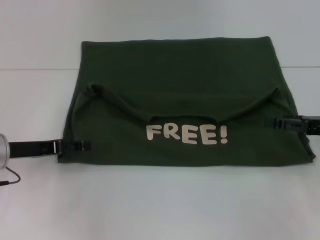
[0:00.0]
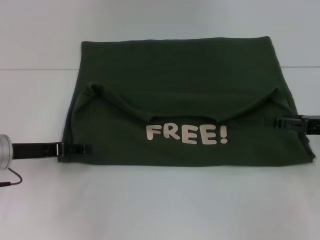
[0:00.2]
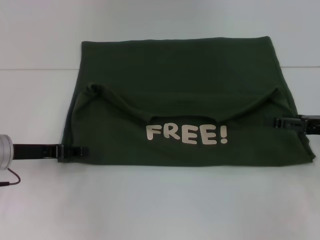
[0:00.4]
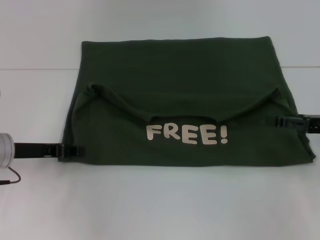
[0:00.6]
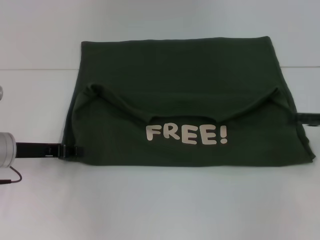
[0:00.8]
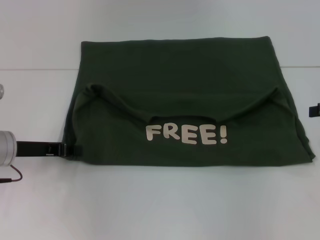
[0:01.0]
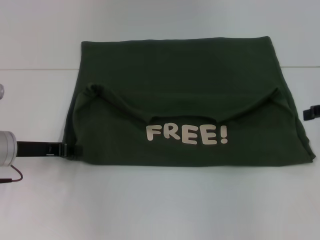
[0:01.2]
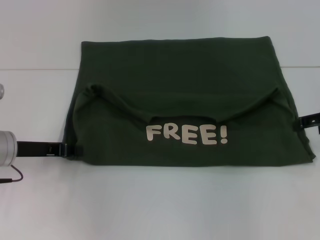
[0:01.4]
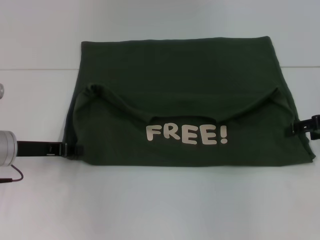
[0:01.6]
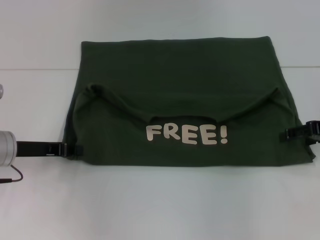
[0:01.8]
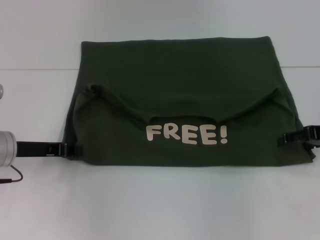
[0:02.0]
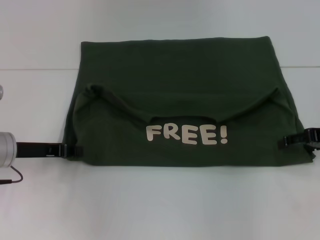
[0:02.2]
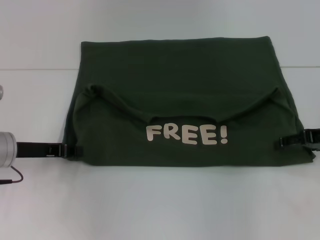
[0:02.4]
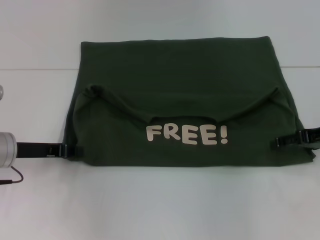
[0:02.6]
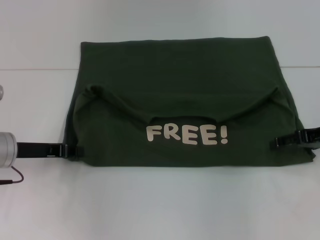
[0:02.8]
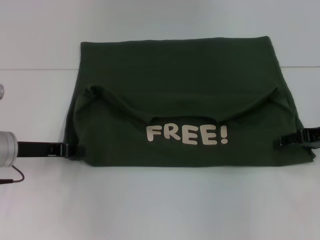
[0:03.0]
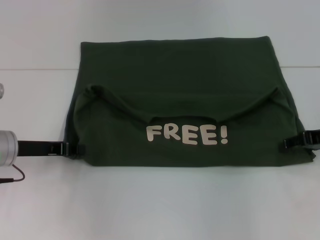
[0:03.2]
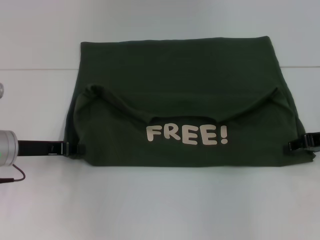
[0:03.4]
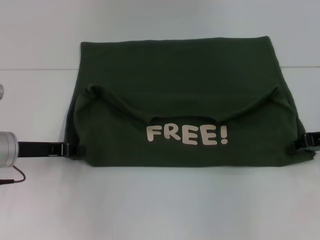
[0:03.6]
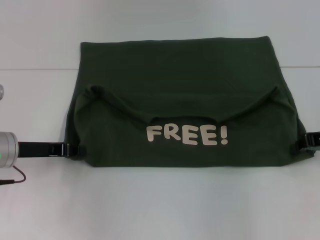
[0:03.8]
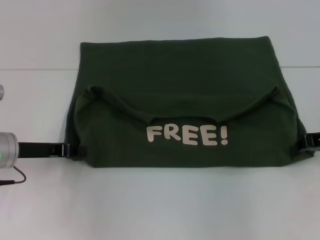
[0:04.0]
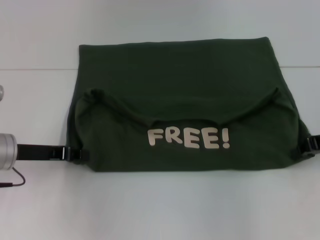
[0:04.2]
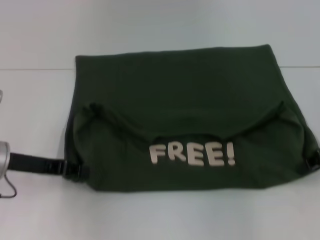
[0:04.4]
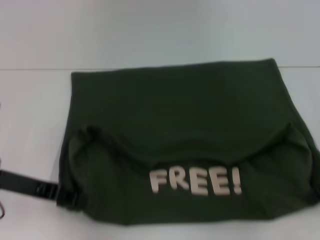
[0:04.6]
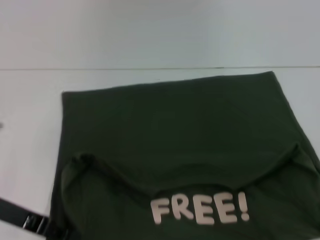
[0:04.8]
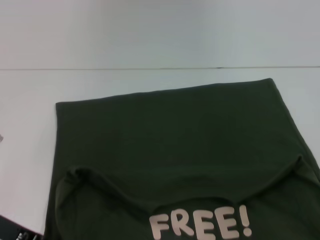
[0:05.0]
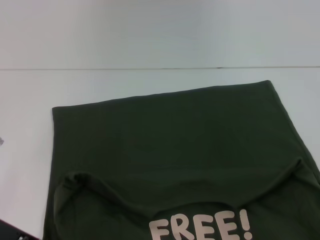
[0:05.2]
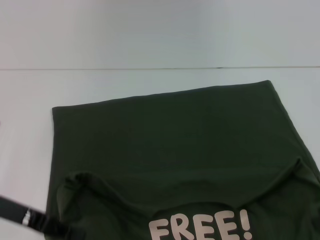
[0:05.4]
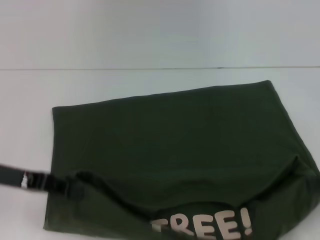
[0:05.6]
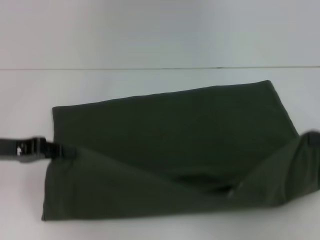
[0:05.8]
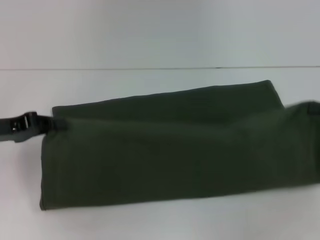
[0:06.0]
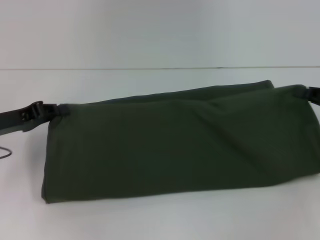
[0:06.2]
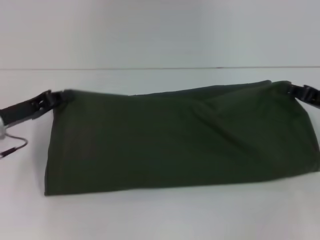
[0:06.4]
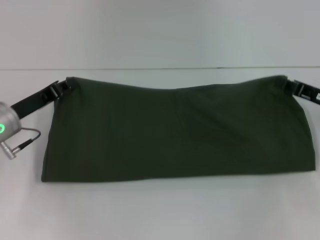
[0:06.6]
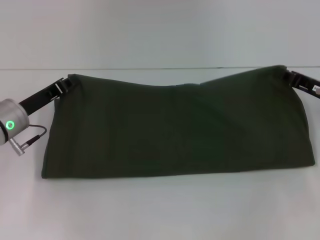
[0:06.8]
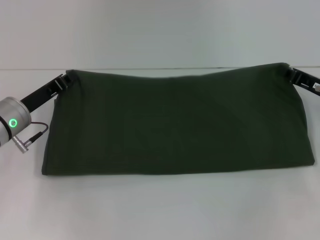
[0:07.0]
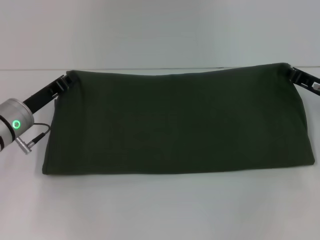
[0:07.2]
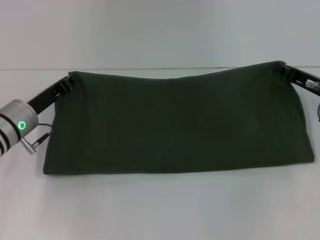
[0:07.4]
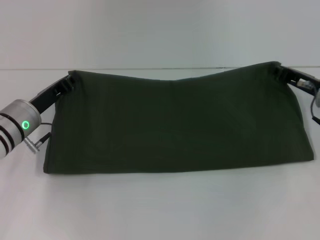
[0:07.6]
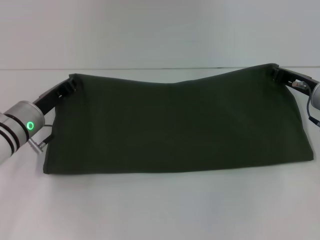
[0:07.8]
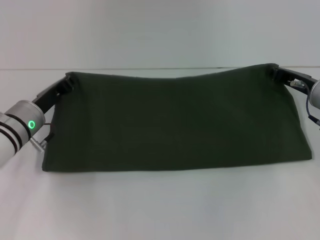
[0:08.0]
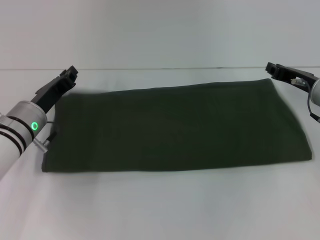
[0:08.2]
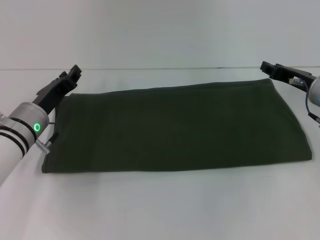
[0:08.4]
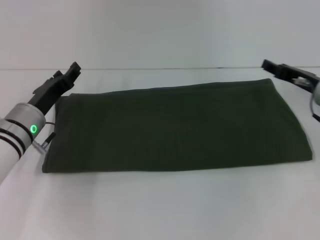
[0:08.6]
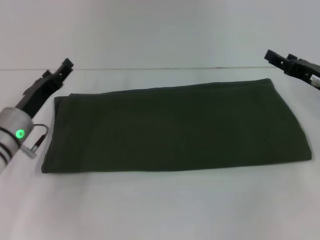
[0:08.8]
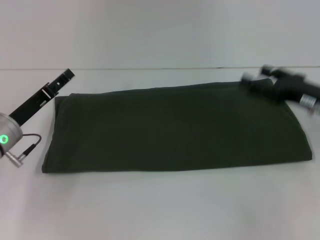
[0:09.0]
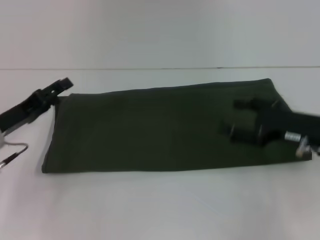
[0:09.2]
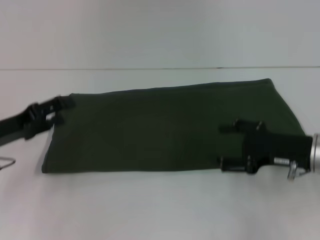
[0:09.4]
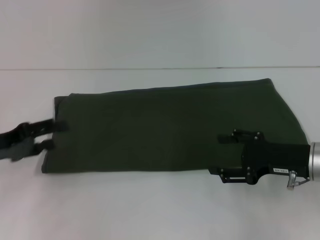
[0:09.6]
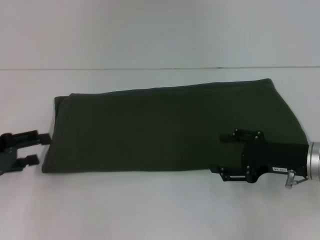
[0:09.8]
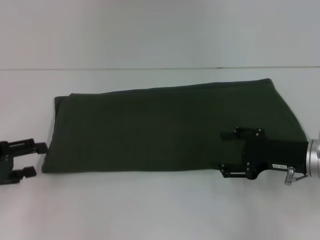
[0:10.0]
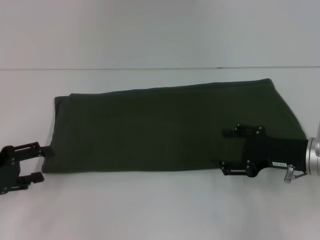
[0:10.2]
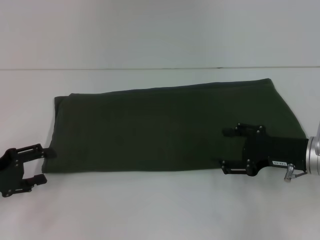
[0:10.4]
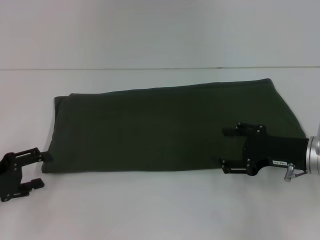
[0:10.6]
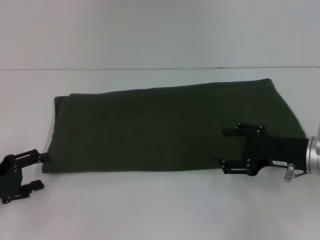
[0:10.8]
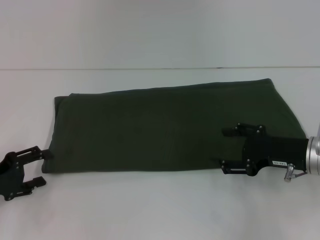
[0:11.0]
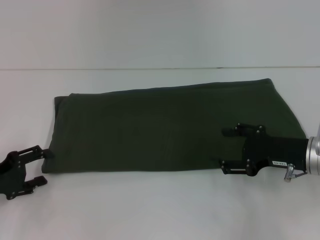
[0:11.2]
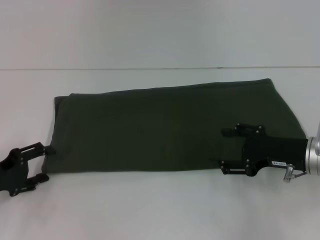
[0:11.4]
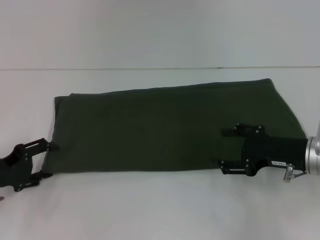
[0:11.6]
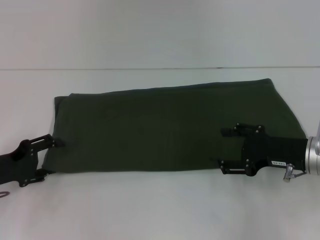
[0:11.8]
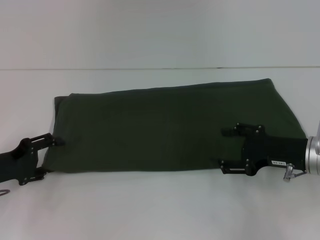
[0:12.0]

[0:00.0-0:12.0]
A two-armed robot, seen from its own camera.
Step, 0:00.0 to 0:04.8: Pull the clothes with your left hand.
Step, 0:00.0 to 0:04.8: Pull the clothes with your right hand.
Step, 0:05.0 to 0:08.8: Fold the clothes with your right hand.
0:00.0 to 0:01.6: The left gripper closes its fingers.
0:01.6 to 0:03.0: The grippers move only a little.
0:03.0 to 0:04.4: The right gripper closes up.
0:04.4 to 0:06.0: The right gripper is displaced to the right by approximately 5 cm. Meanwhile the left gripper moves approximately 5 cm.
0:06.0 to 0:07.6: The left gripper heads to the right and downward, covering roughly 10 cm. Meanwhile the right gripper shifts about 15 cm to the left, forward and downward.
0:07.6 to 0:09.0: The right gripper opens; the left gripper opens up.
0:09.0 to 0:10.4: The left gripper goes some 10 cm to the left and backward, while the right gripper ends up approximately 5 cm from where it was.
0:10.4 to 0:12.0: The grippers stay close to where they were, moving slightly.

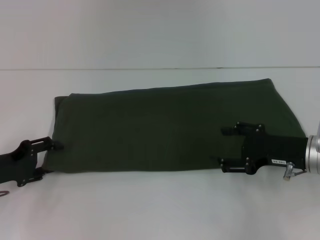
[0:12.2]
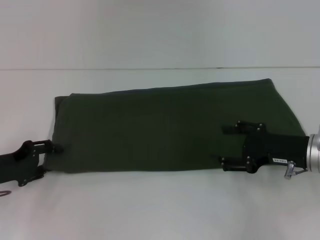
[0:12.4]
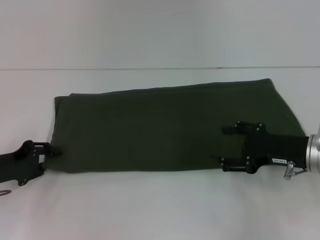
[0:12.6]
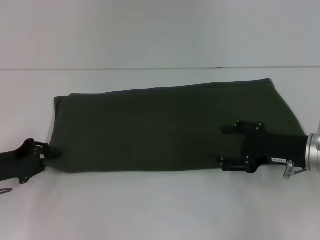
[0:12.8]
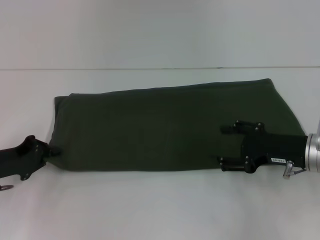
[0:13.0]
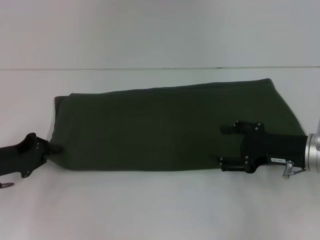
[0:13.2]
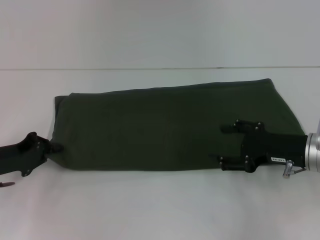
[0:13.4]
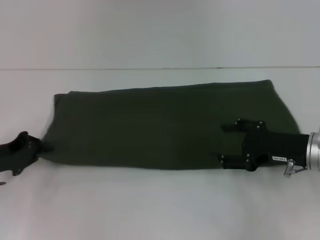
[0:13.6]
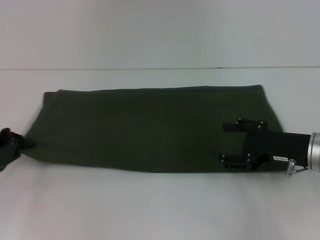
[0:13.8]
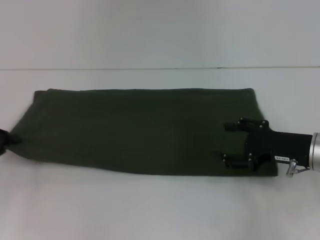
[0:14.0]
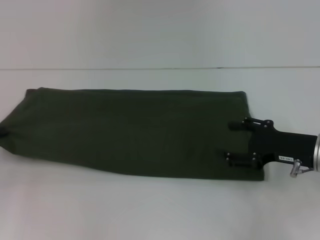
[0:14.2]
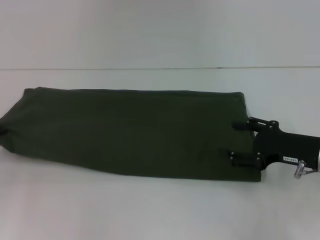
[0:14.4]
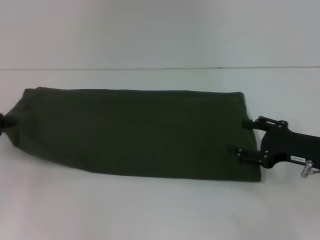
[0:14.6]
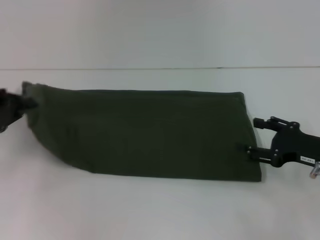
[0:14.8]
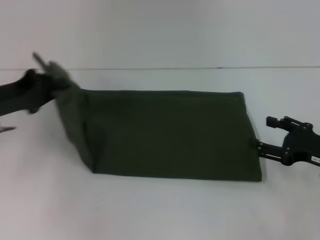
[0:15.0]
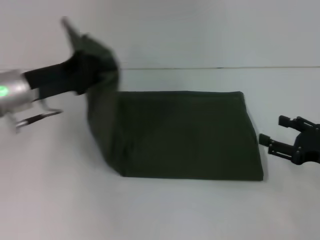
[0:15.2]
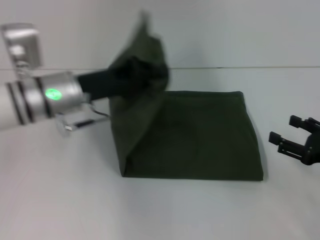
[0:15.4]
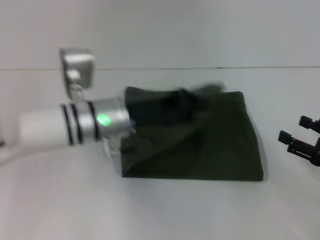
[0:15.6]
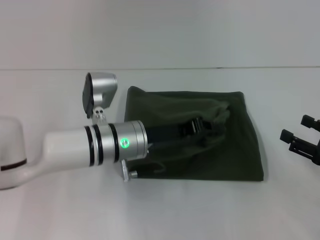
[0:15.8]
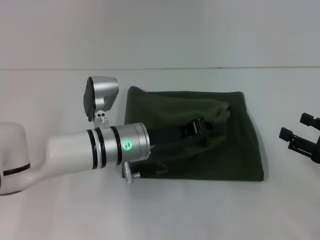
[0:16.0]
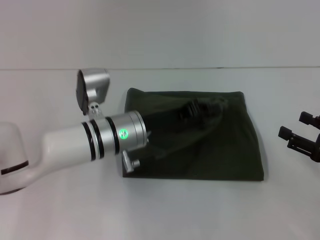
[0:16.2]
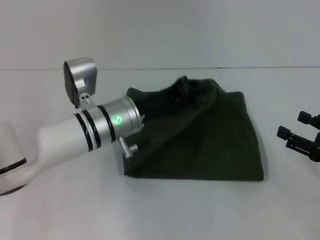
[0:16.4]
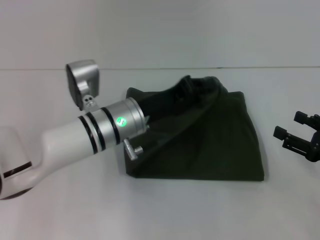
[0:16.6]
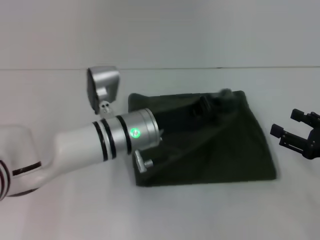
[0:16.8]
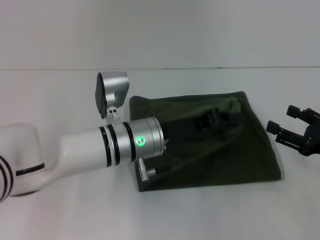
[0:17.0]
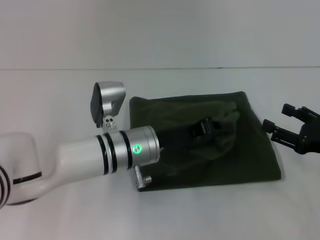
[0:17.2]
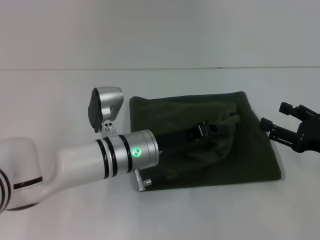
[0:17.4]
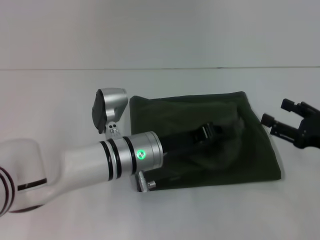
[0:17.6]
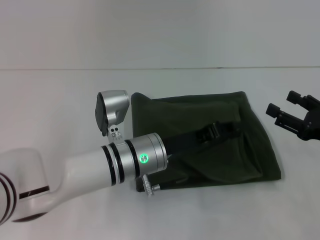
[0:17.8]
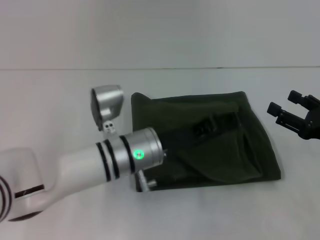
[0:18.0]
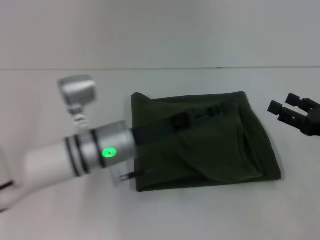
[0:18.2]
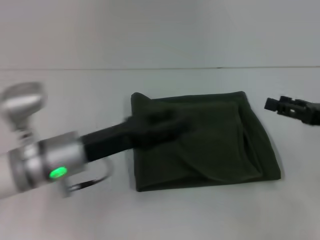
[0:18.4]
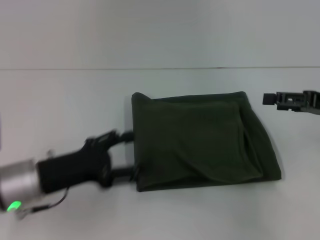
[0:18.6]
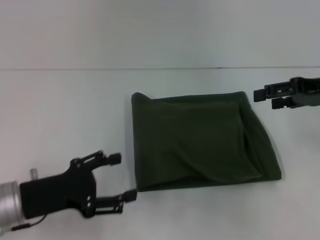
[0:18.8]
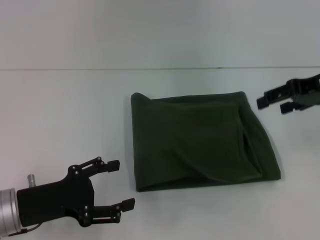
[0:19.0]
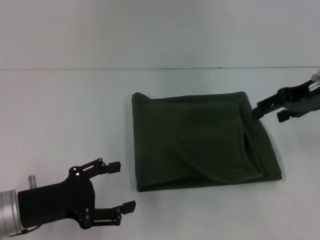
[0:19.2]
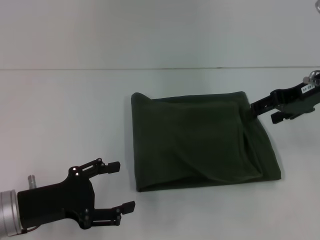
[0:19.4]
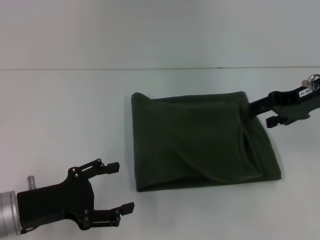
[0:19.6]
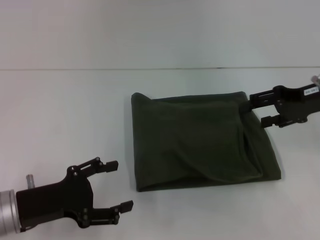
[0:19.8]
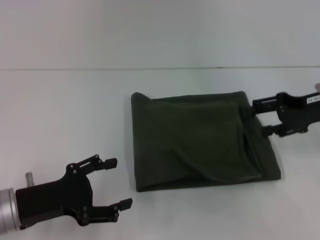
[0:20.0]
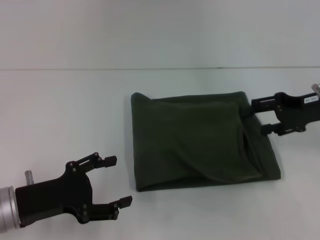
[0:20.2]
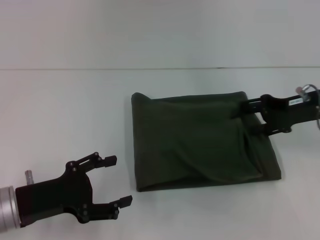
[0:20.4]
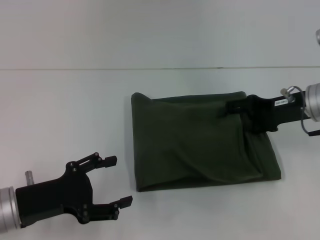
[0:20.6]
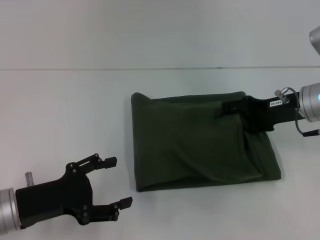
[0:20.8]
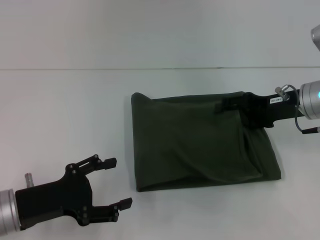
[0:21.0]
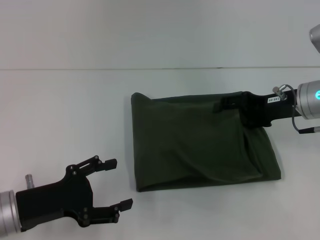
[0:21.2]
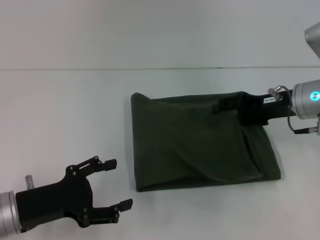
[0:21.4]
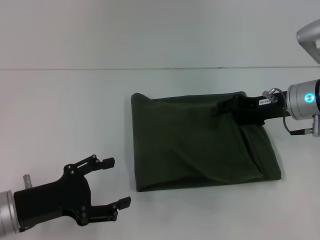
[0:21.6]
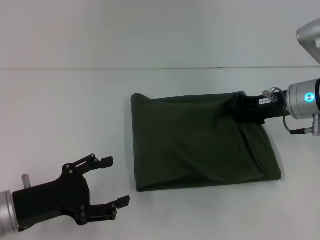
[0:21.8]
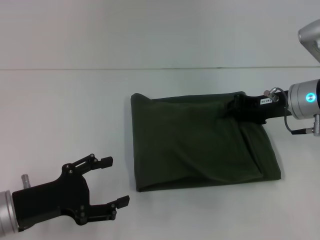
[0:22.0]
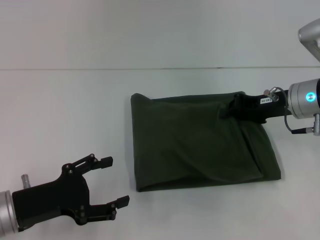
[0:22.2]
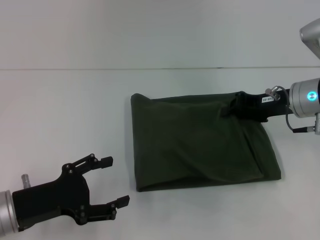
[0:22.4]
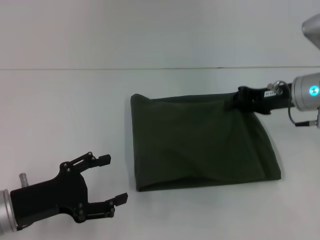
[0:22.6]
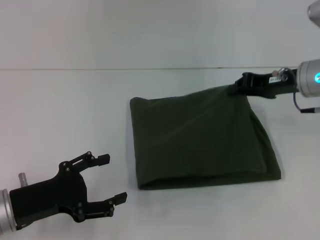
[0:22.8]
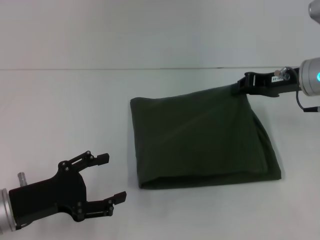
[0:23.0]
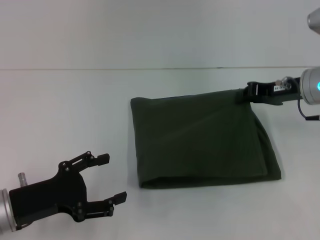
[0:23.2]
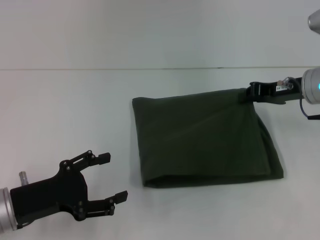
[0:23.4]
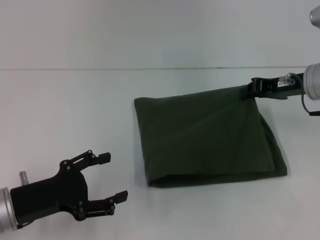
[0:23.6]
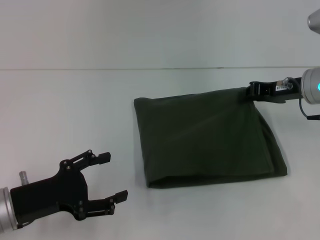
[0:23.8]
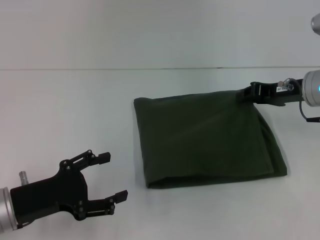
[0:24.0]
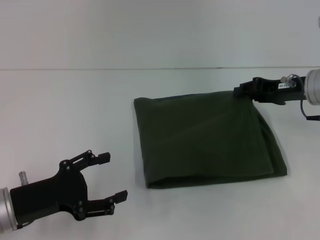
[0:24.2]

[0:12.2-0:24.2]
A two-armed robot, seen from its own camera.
Step, 0:12.2 to 0:18.2: Fold the clothes with your left hand.
0:12.2 to 0:13.8: The left gripper closes.
0:13.8 to 0:15.2: The left gripper heads to the right, upward and forward, covering approximately 15 cm; the right gripper heads to the right, covering about 5 cm.
0:15.2 to 0:16.6: The left gripper travels to the right by about 15 cm.
0:16.6 to 0:18.2: The left gripper opens up.
0:18.2 to 0:19.8: The left gripper travels to the left and backward by about 15 cm, and opens its fingers; the right gripper moves forward and upward, some 15 cm.
0:19.8 to 0:21.2: The right gripper moves about 5 cm.
0:21.2 to 0:22.6: The right gripper closes.
0:22.6 to 0:24.2: The grippers move only a little.
